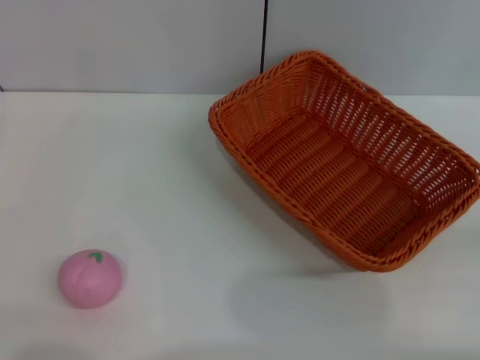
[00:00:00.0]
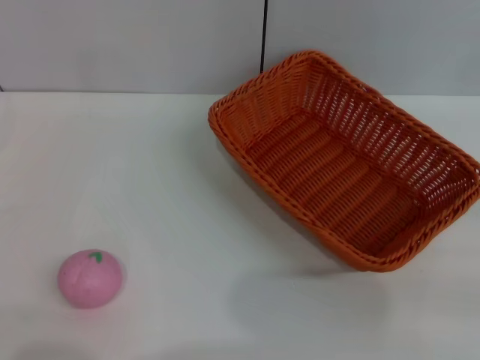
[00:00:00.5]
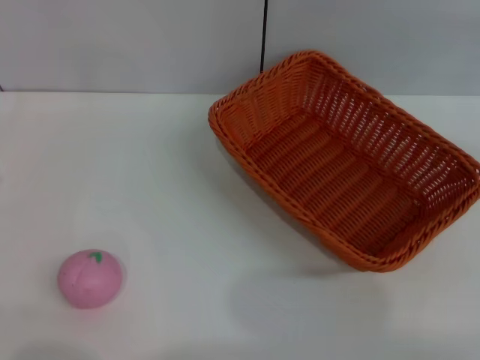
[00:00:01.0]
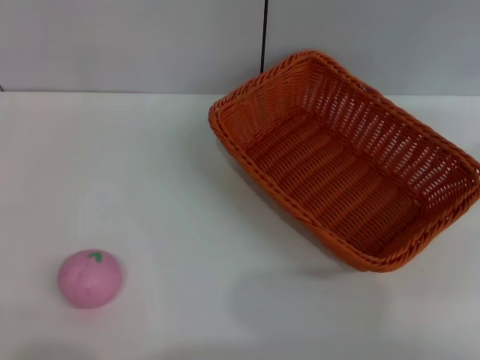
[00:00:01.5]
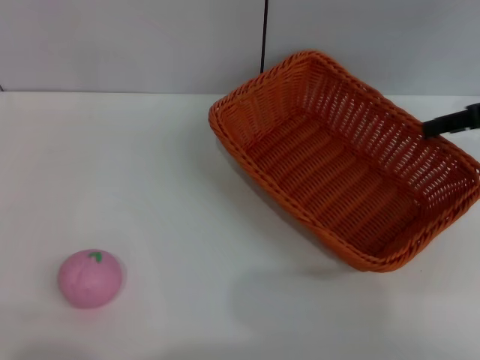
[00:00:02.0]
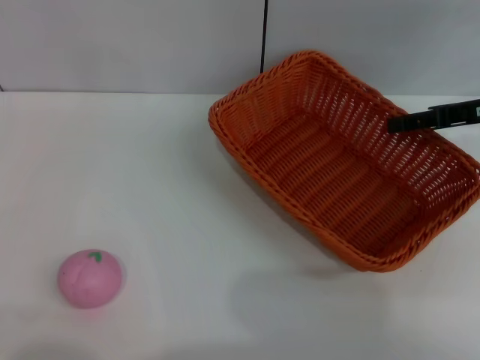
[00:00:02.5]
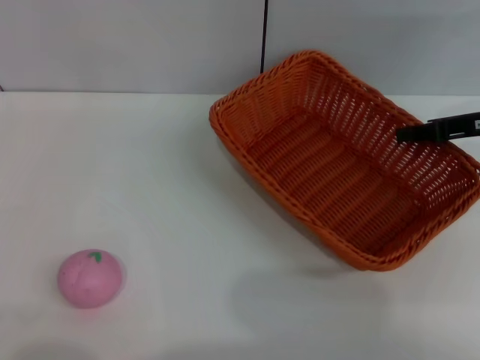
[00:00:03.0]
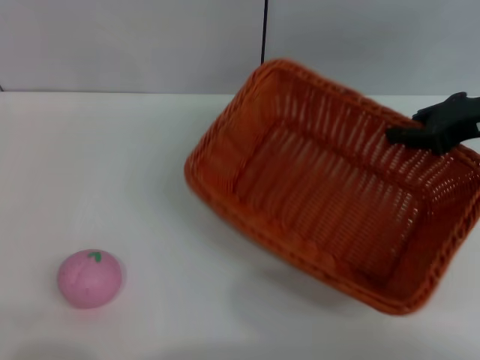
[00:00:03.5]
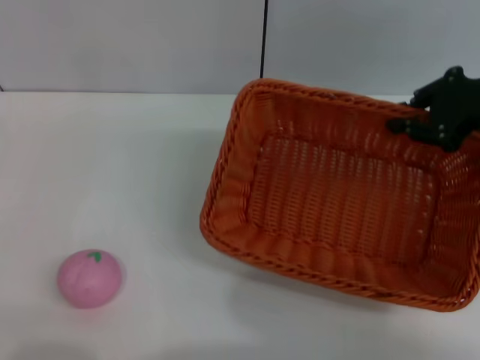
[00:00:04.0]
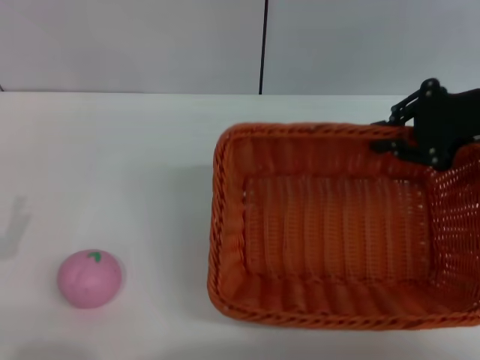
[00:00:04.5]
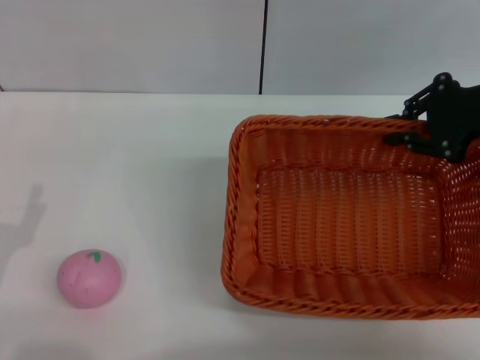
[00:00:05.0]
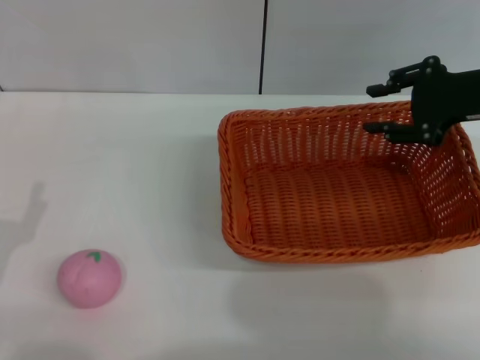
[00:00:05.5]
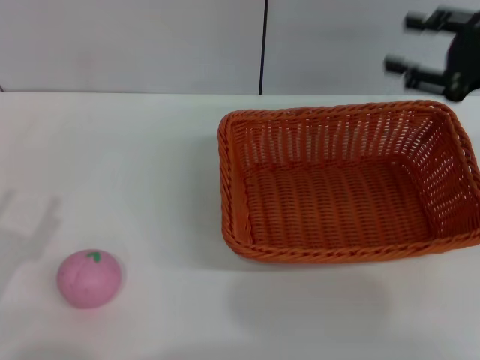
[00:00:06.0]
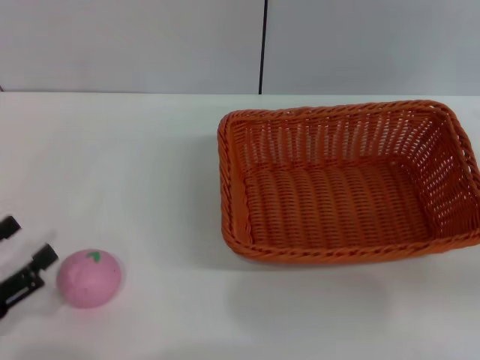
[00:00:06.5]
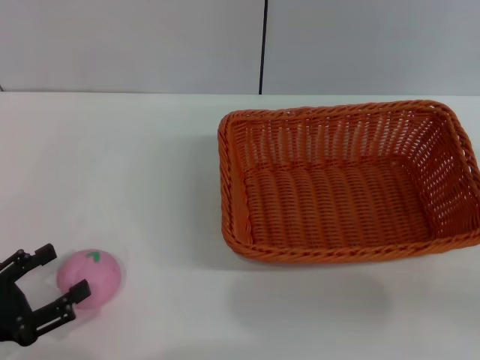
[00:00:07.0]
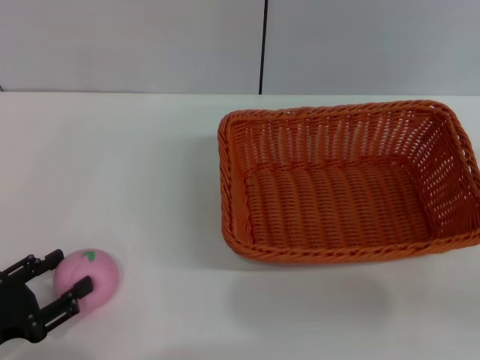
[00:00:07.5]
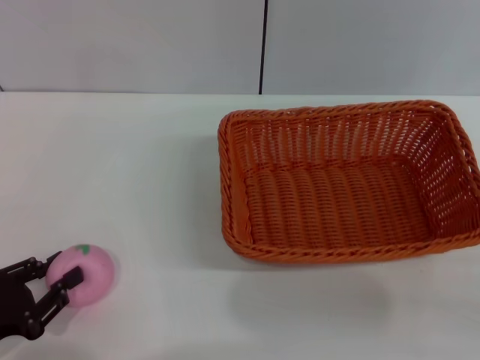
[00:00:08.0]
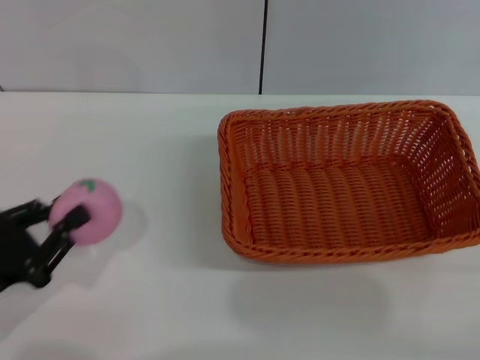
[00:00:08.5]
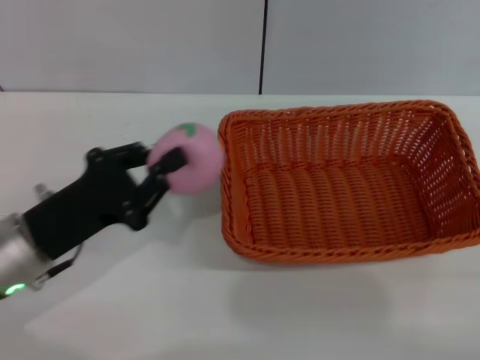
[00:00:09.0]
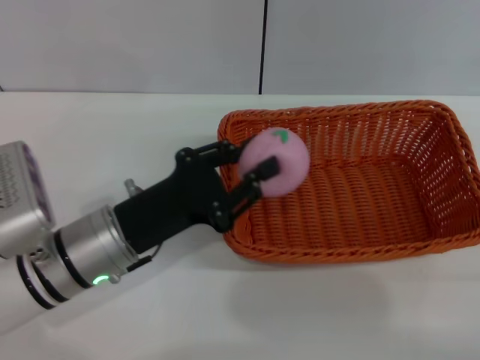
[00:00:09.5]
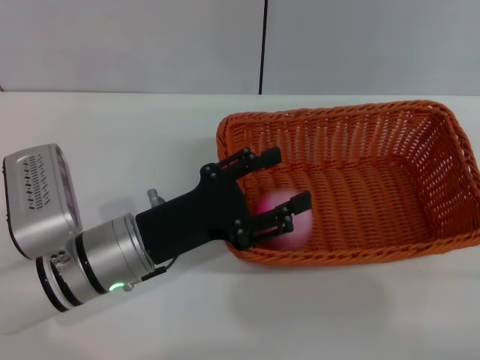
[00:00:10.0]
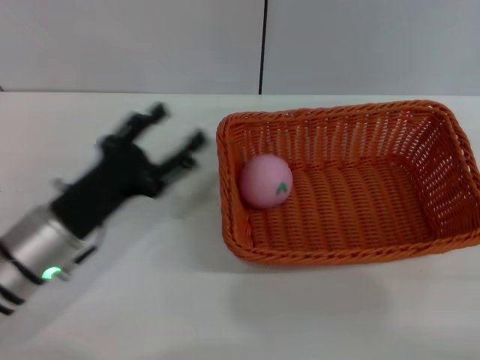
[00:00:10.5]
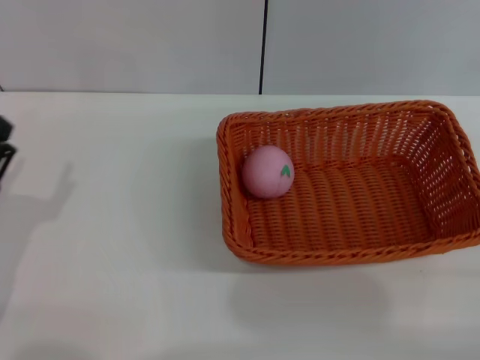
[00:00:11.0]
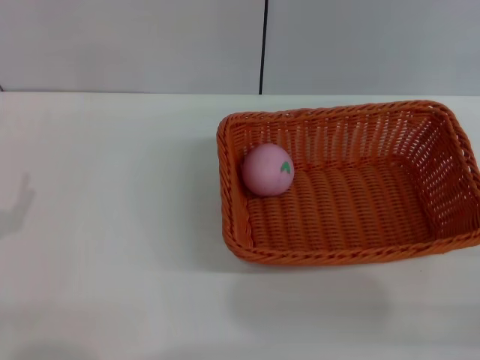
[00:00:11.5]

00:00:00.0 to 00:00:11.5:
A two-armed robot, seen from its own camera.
Step, 00:00:00.0 to 00:00:03.0: Pick up the light basket with the right gripper.
Step, 00:00:03.5 to 00:00:05.5: Place the light basket in the center of view with the right gripper.
Step, 00:00:06.0 to 00:00:08.5: Pick up the peach with the left gripper.
Step, 00:00:09.0 to 00:00:10.0: Place the peach into the basket with the left gripper.
00:00:00.0 to 00:00:02.0: The right gripper travels forward and upward by some 25 cm.
00:00:02.0 to 00:00:04.0: The right gripper closes its fingers.
00:00:04.0 to 00:00:06.0: The right gripper opens up.
00:00:06.0 to 00:00:07.5: The right gripper heads backward, downward and to the right, covering roughly 15 cm.
00:00:07.5 to 00:00:09.5: The left gripper travels to the right and forward by some 20 cm, and closes its fingers; the right gripper shifts by some 5 cm.
00:00:09.5 to 00:00:11.5: The left gripper shifts roughly 15 cm to the left and backward, and opens its fingers.
